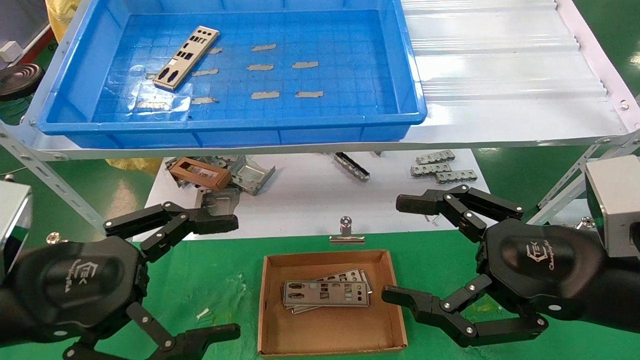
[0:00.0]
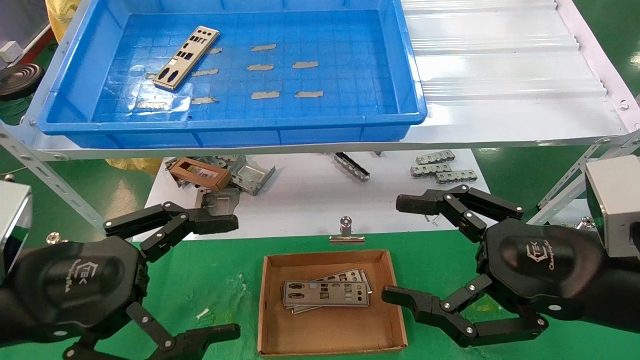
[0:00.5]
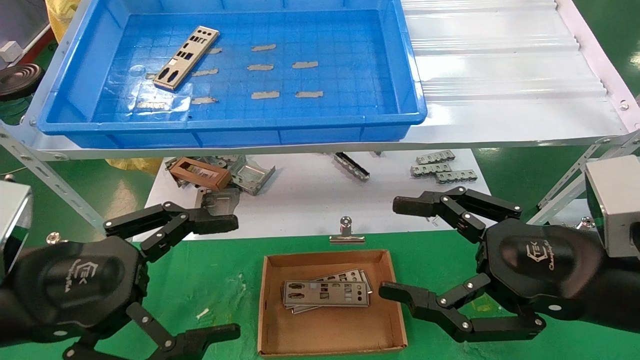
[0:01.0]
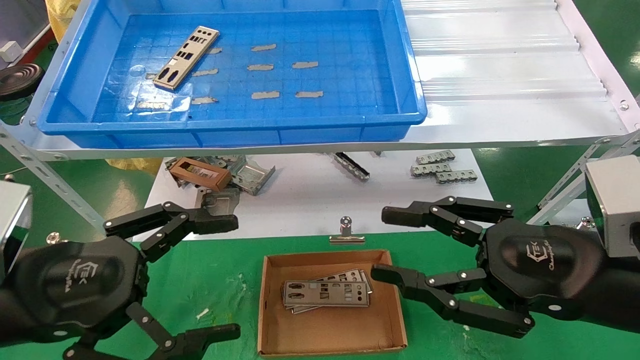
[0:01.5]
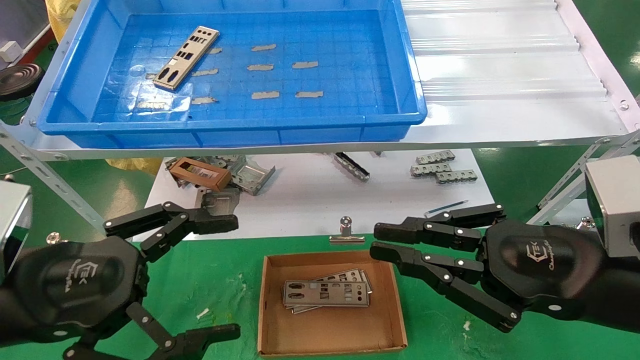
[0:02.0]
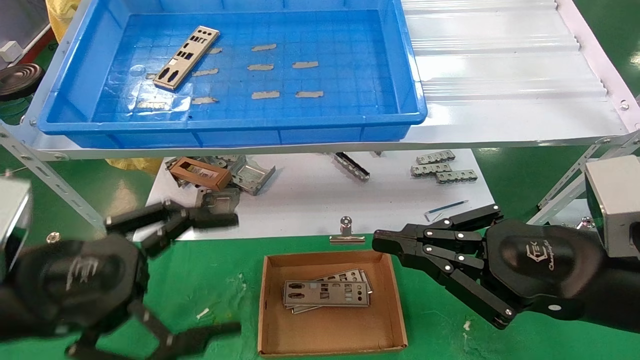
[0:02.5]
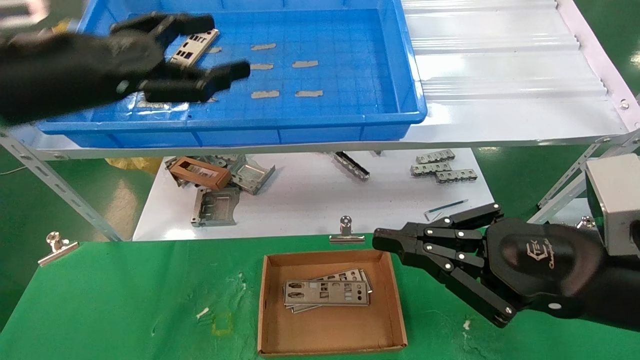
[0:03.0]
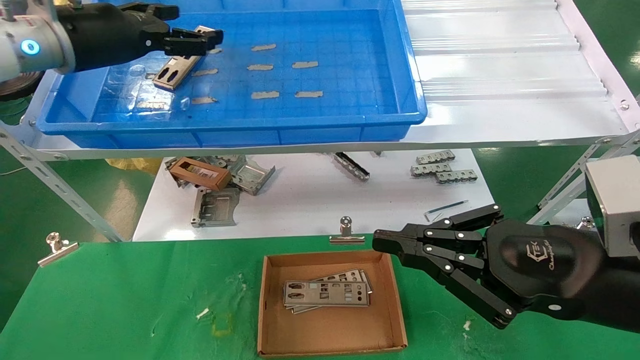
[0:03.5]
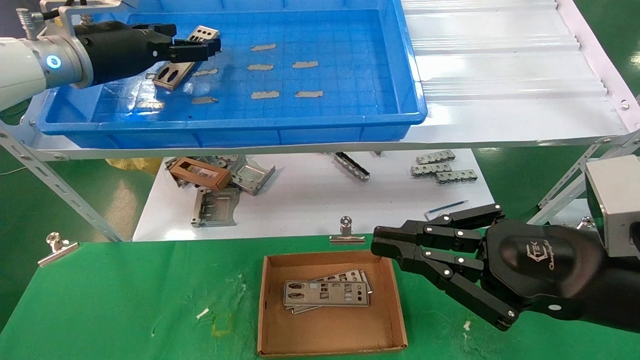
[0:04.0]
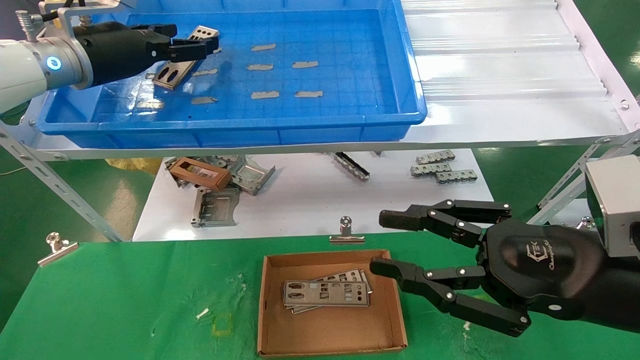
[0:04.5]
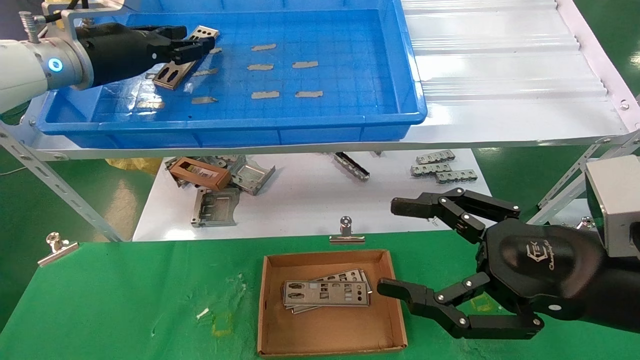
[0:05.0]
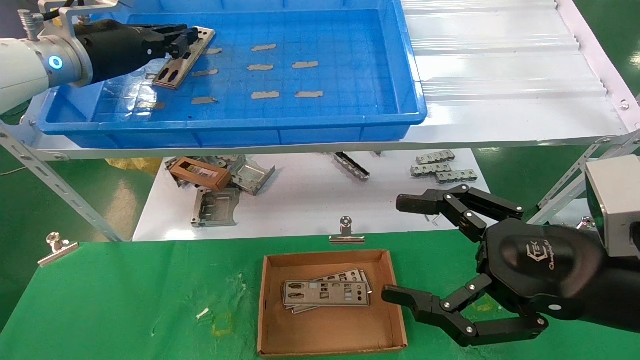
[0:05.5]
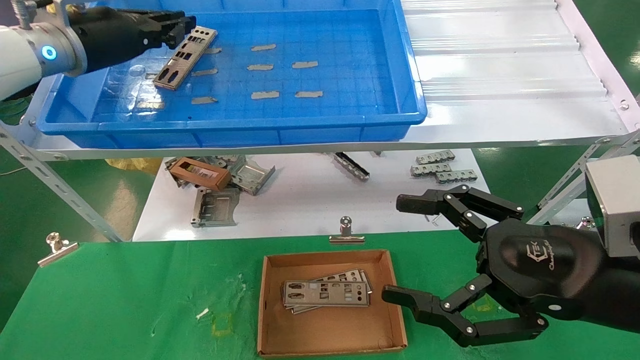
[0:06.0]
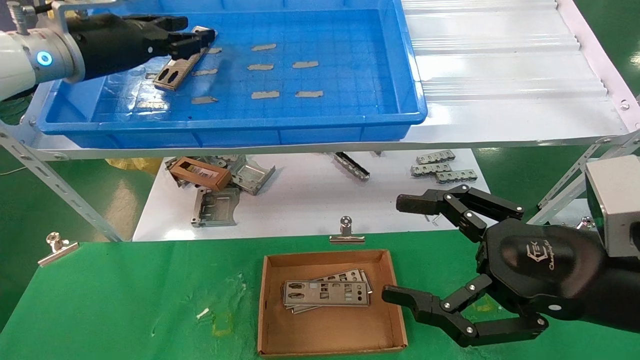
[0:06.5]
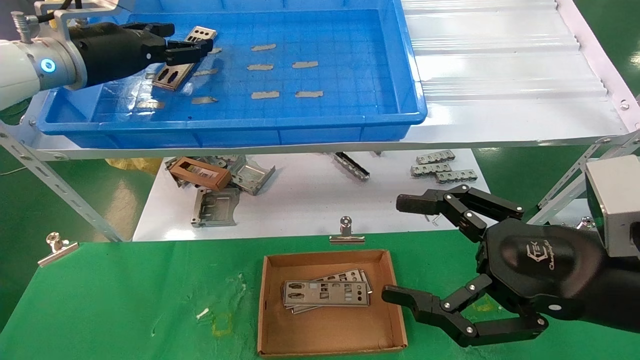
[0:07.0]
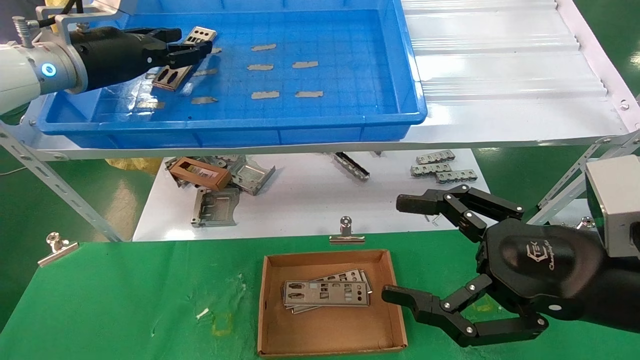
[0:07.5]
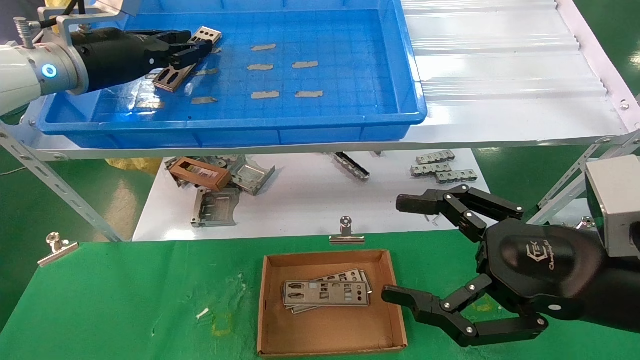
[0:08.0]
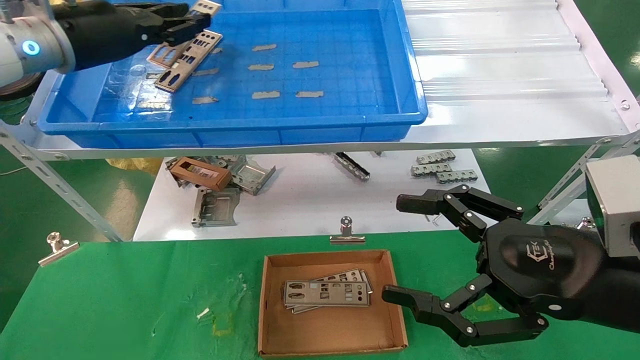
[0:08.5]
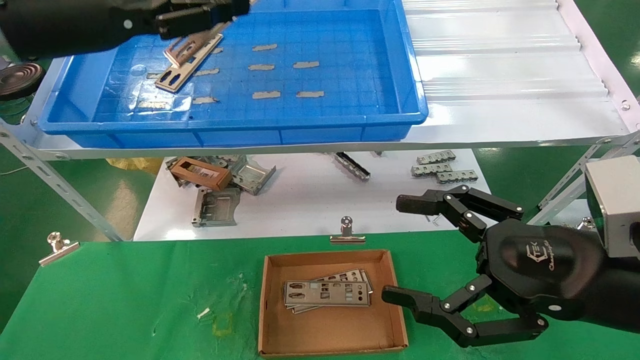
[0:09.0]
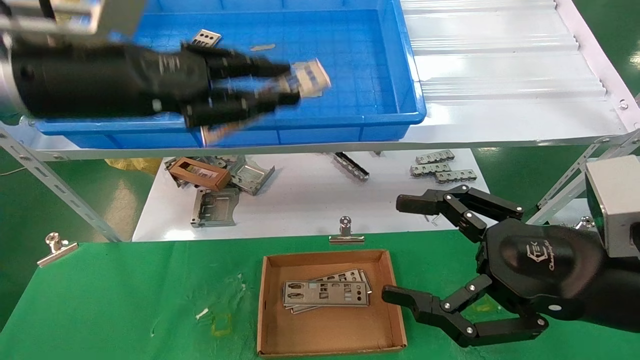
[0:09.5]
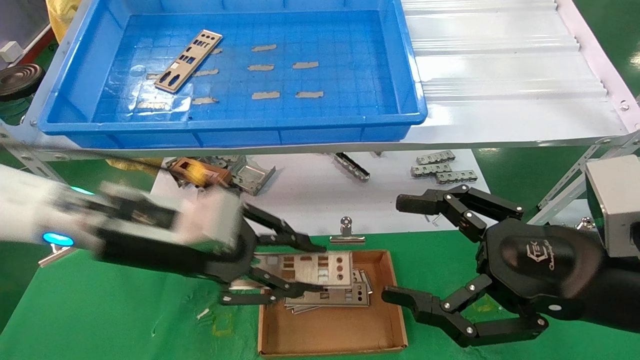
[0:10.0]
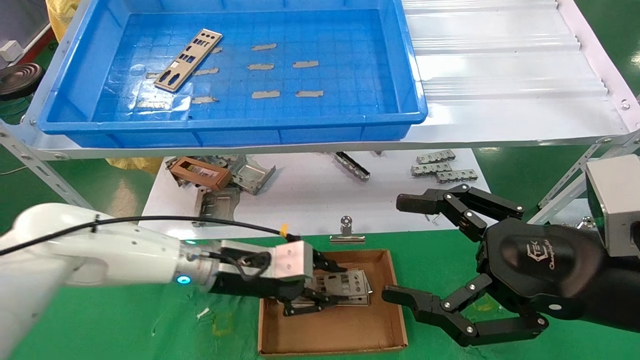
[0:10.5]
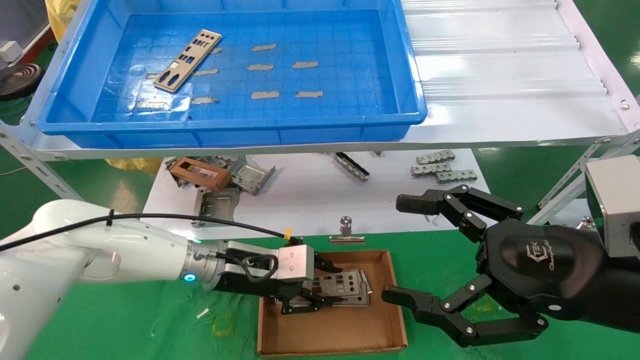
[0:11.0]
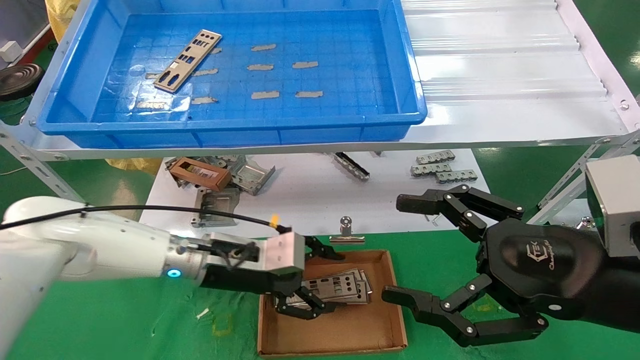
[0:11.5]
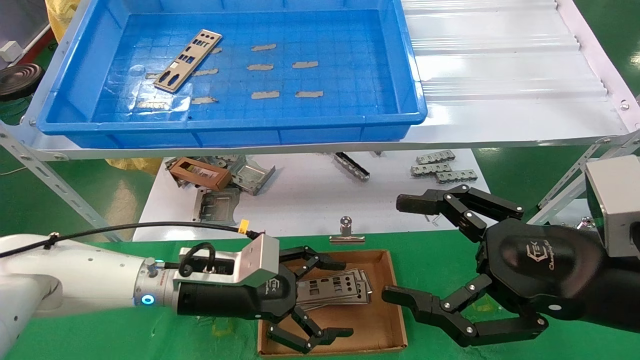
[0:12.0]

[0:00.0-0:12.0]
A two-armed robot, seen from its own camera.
Task of the whole recording: pick up the parts on the tray and put them in the cardboard box.
Step, 0:03.0 to 0:07.5: Pick up the IO bracket from the container box.
Step, 0:08.0 to 0:11.0: Place the IO bracket into the ingredient slot.
0:00.0 to 0:02.0: The right gripper closes.
0:02.0 to 0:04.0: The left gripper heads forward and upward, covering approximately 30 cm.
0:04.0 to 0:06.0: The left gripper closes its fingers. Meanwhile the right gripper opens.
0:06.0 to 0:08.0: The left gripper opens, then closes once more.
0:08.0 to 0:10.0: The left gripper is displaced downward, backward and to the right by about 25 cm.
0:10.0 to 0:12.0: The left gripper moves downward, some 10 cm, and opens up.

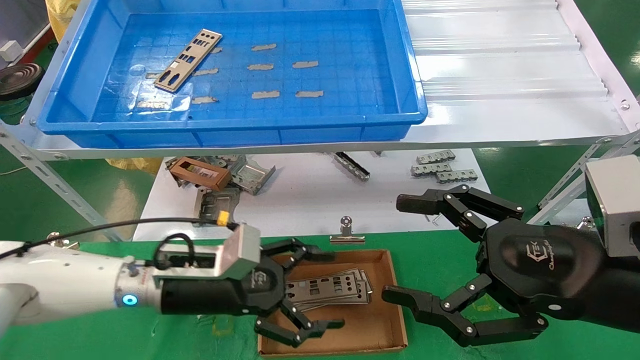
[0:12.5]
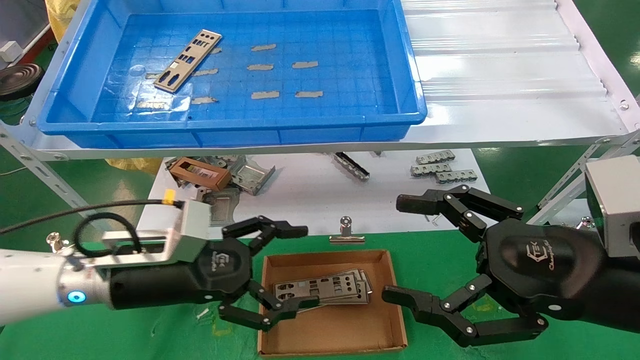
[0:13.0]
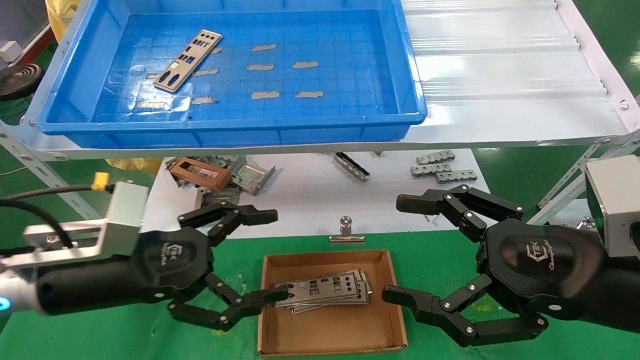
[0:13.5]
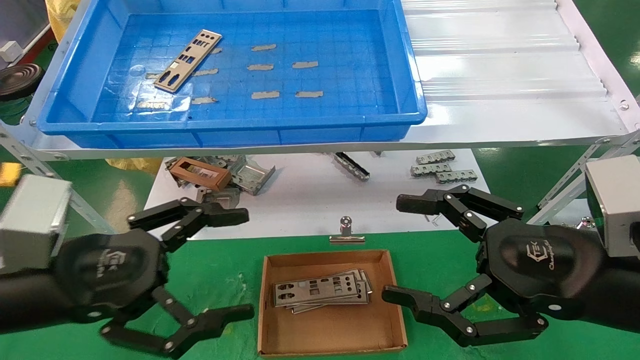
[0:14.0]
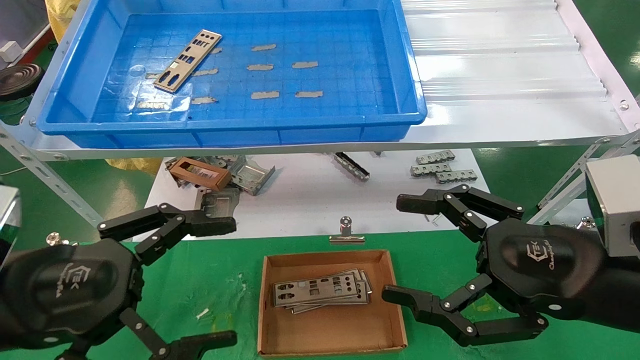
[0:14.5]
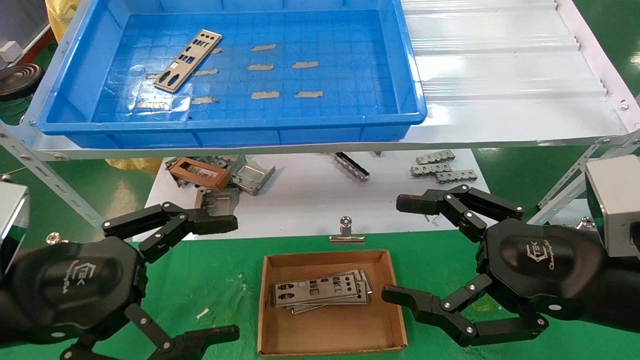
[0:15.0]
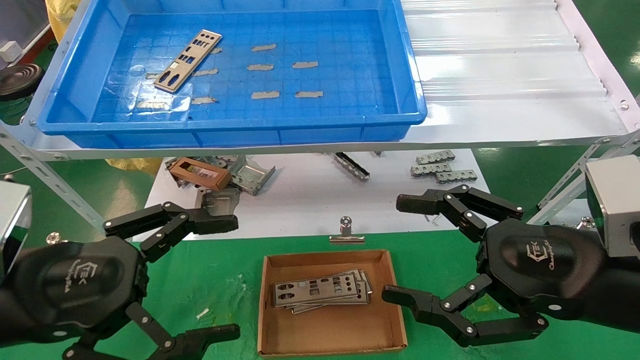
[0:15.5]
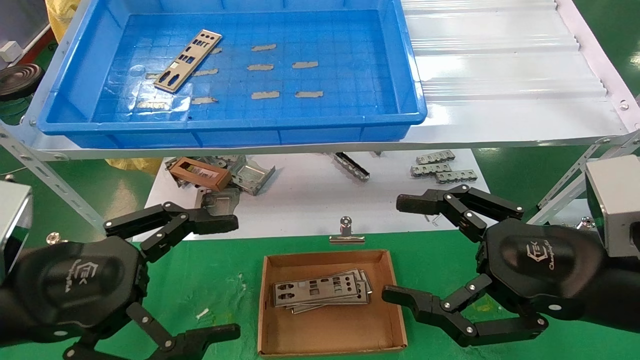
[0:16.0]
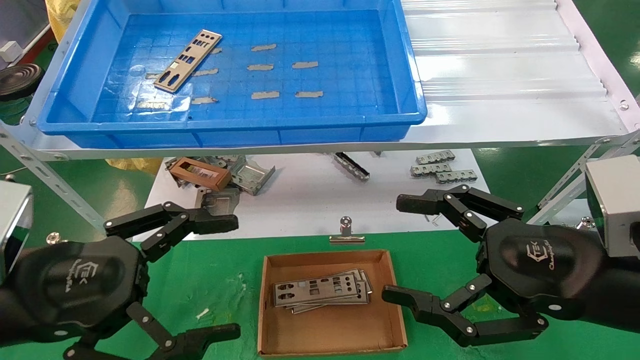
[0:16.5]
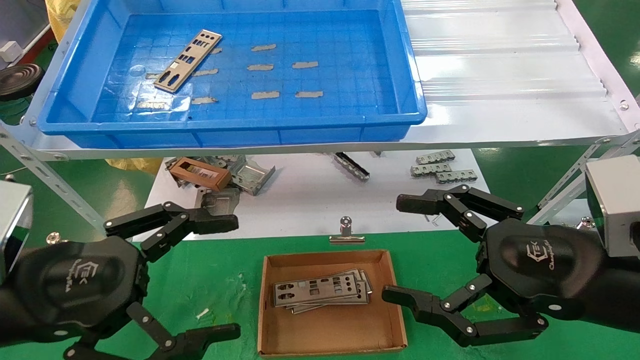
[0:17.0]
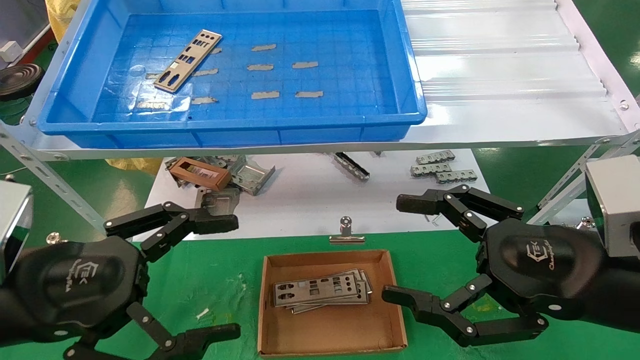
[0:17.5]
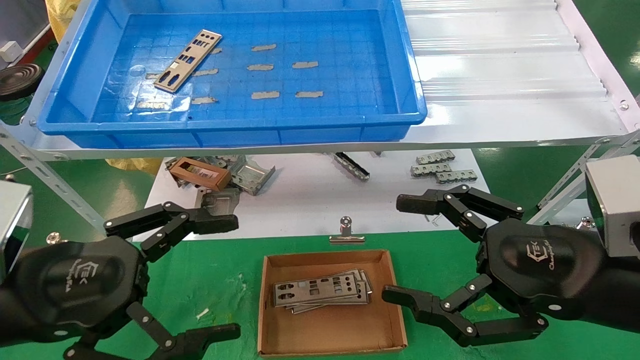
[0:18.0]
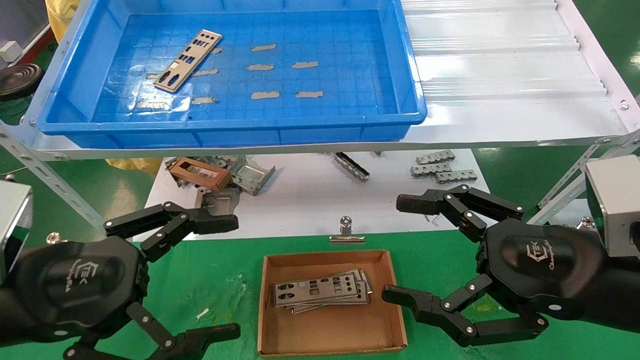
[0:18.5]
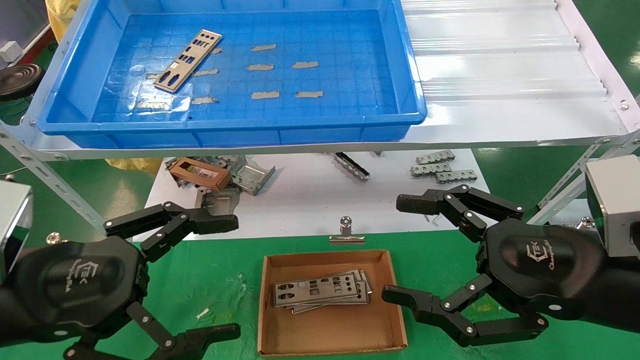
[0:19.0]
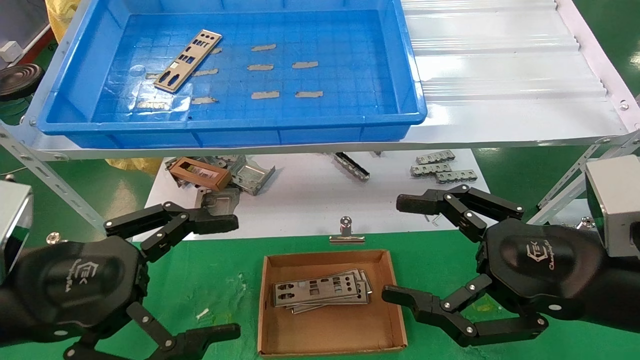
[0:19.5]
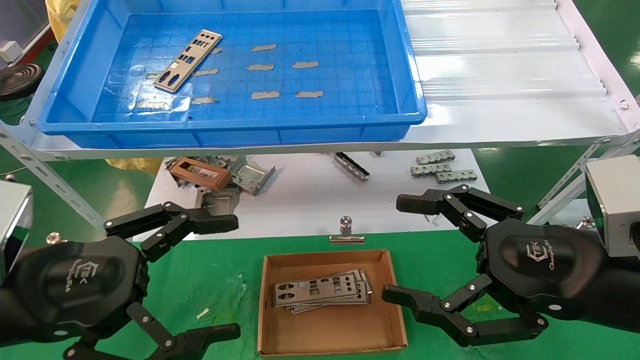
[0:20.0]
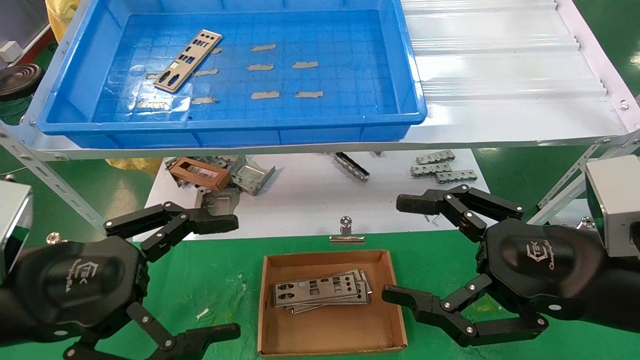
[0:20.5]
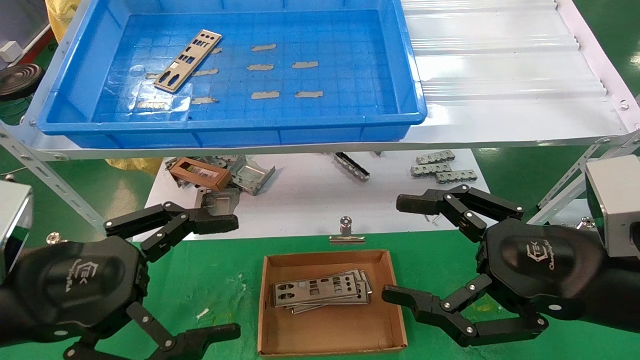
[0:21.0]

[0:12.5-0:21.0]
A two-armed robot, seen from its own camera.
Task of the whole recording: pick up the parts on the tray and put them in the cardboard box.
0:12.5 to 0:14.5: The left gripper goes approximately 20 cm backward, to the left and upward.
0:14.5 to 0:21.0: Neither gripper changes place.
